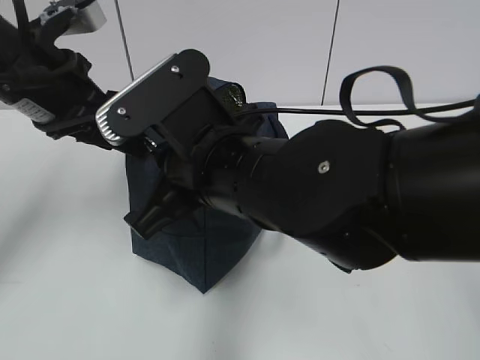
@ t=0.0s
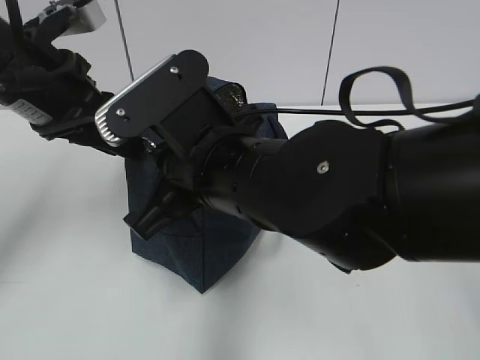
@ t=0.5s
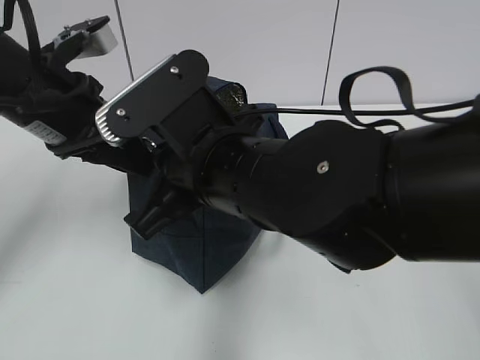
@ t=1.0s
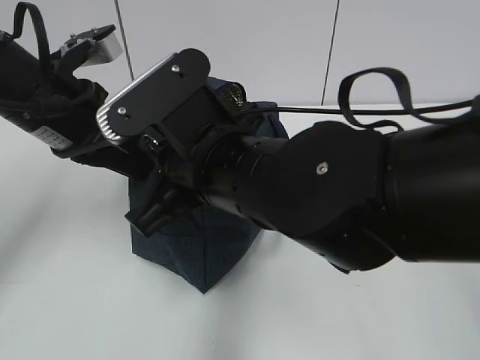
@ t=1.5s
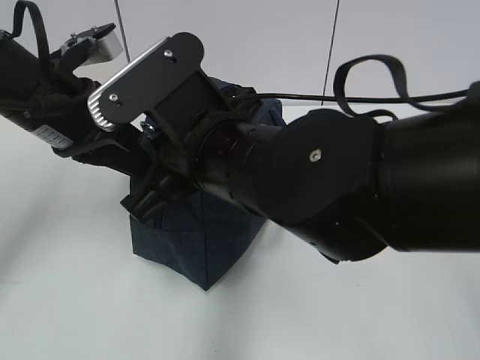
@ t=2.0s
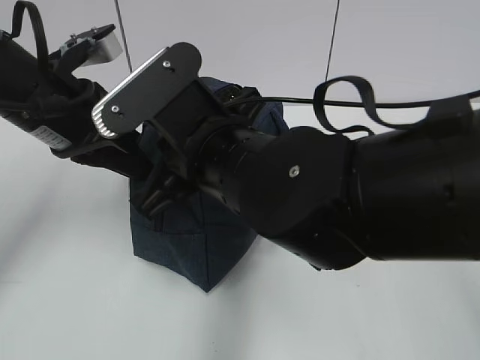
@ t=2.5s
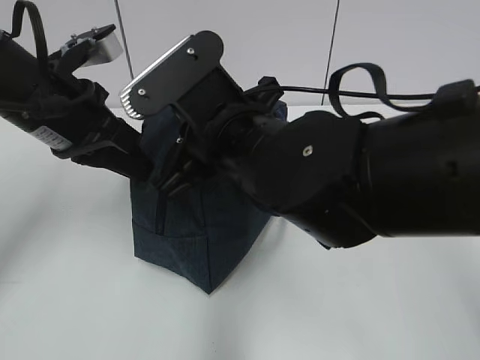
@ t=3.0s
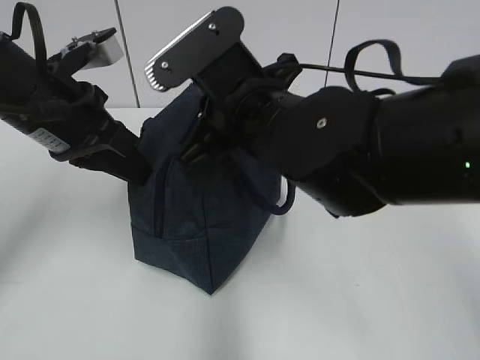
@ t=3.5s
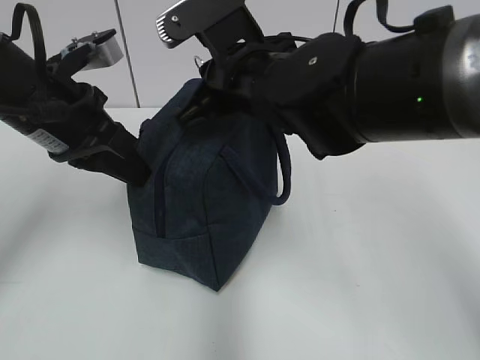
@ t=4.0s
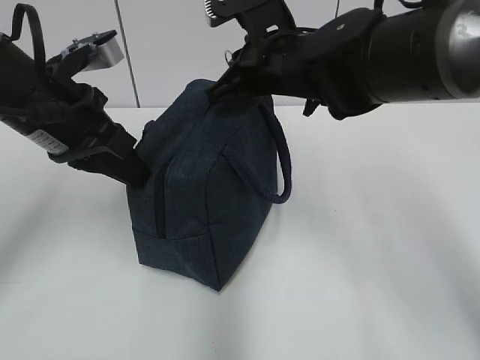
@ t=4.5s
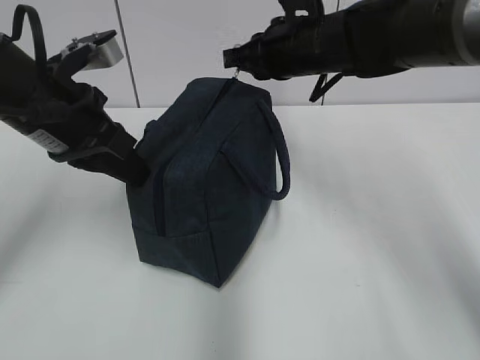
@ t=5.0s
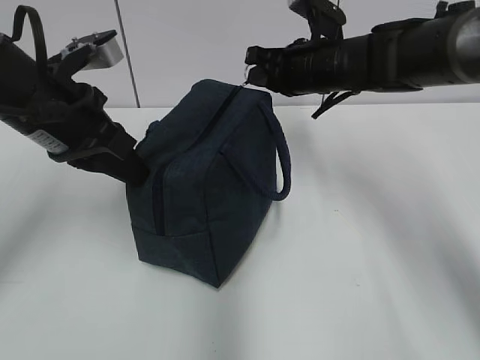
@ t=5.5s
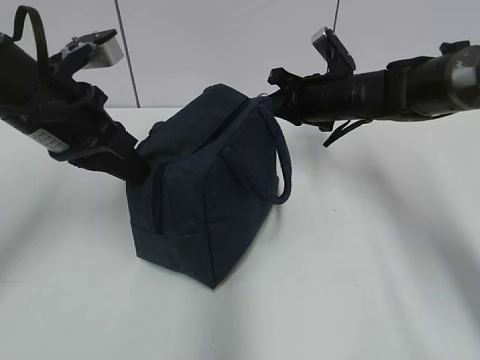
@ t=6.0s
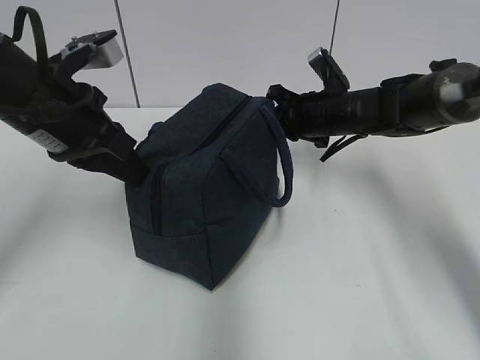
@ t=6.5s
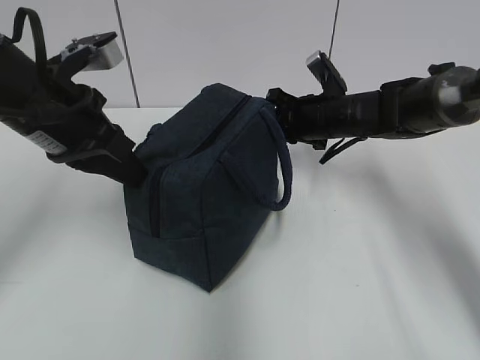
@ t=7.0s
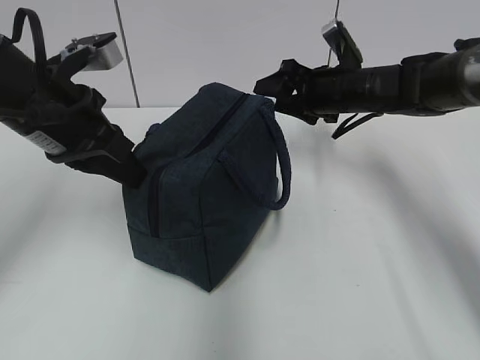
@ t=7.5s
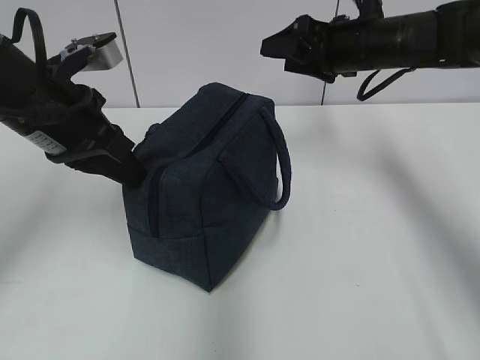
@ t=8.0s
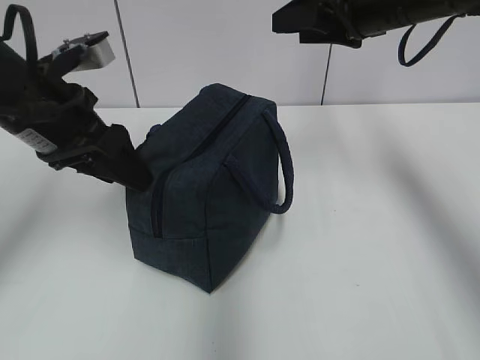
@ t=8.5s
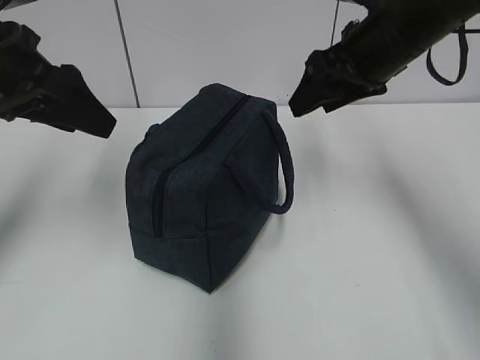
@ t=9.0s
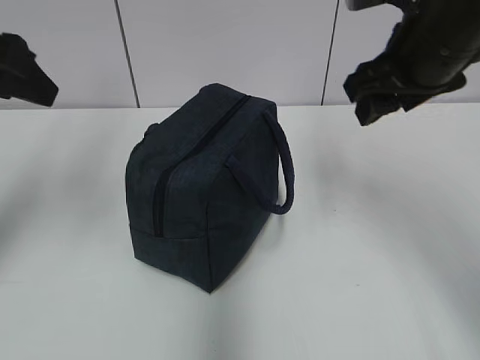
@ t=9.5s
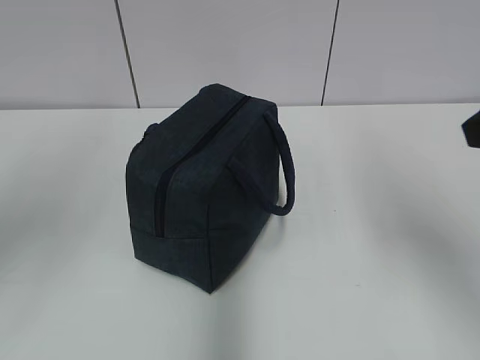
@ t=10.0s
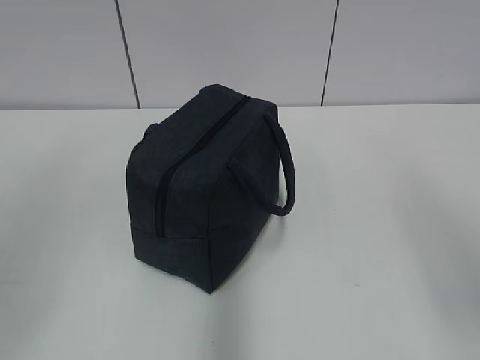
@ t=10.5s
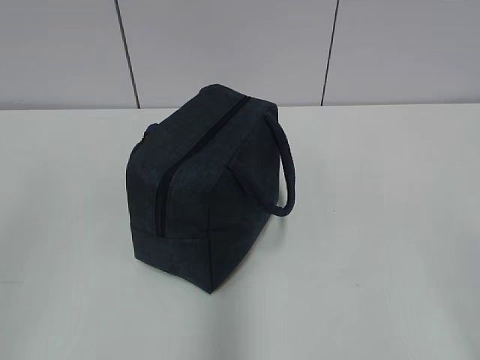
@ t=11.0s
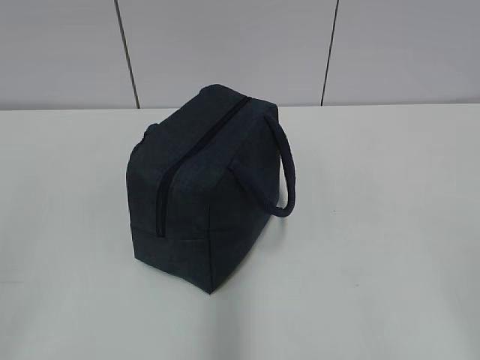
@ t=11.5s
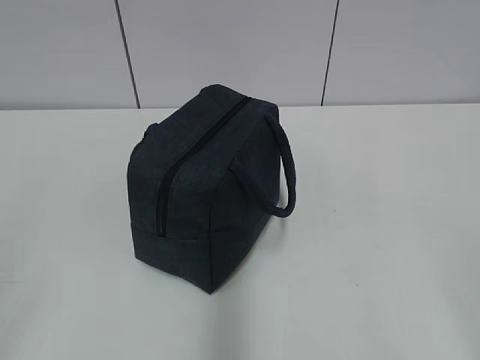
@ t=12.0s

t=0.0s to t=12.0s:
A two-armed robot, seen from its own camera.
Step, t=0.0s to t=7.0s: Pull the zipper with your right hand.
t=0.0s to t=2.0s: The left gripper closes up.
t=2.0s to t=4.0s: The right gripper is displaced forward by approximately 10 cm.
t=4.0s to t=6.0s: The right gripper heads forward, to the right and downward, covering about 20 cm.
t=6.0s to t=8.0s: The right gripper shifts some 10 cm upward, and opens up.
t=8.0s to t=10.0s: The right gripper travels backward by approximately 25 cm; the left gripper heads backward, upward and to the left, covering roughly 15 cm, and opens up.
t=10.0s to t=12.0s: The right gripper moves backward, about 20 cm. The left gripper moves backward and downward, about 20 cm.

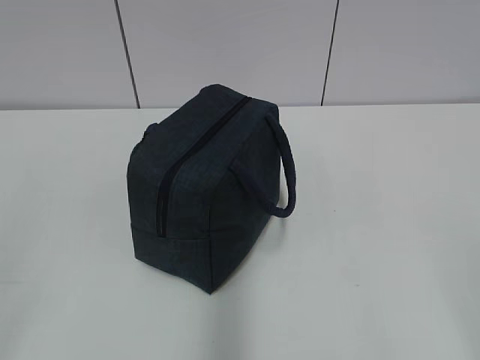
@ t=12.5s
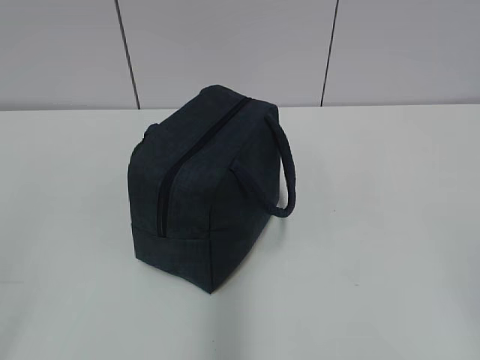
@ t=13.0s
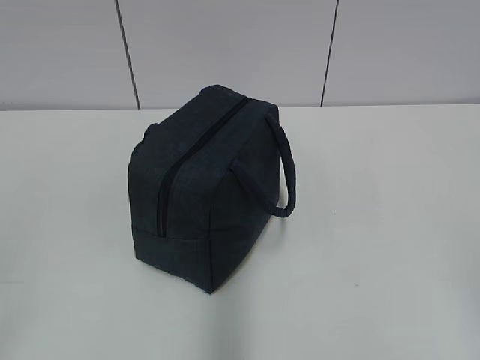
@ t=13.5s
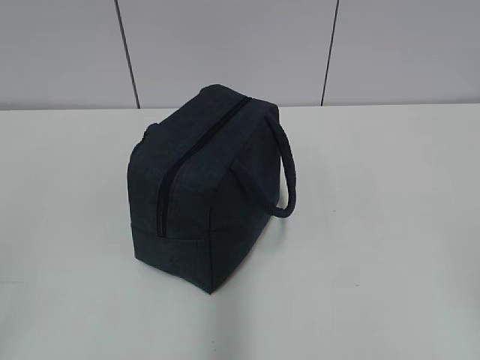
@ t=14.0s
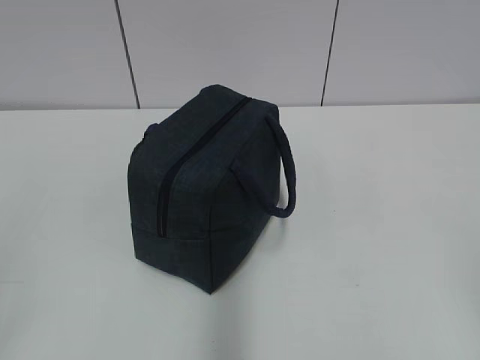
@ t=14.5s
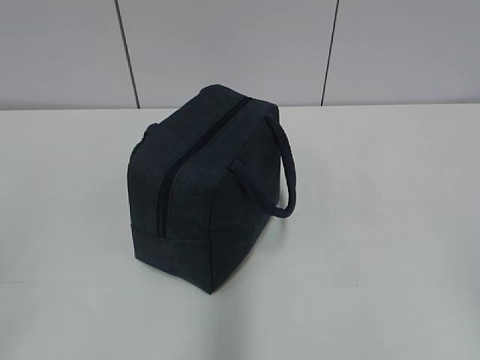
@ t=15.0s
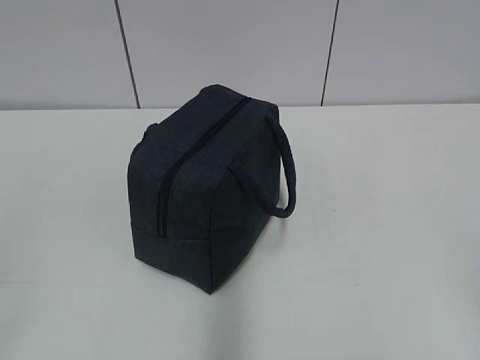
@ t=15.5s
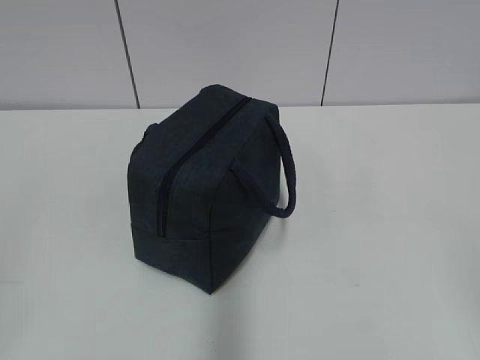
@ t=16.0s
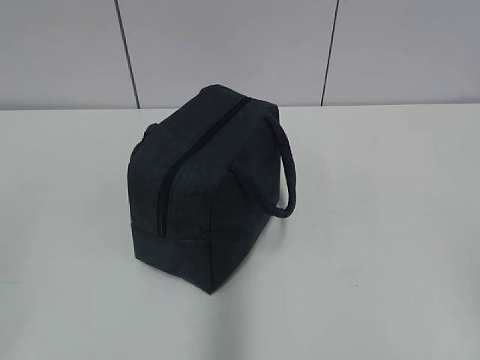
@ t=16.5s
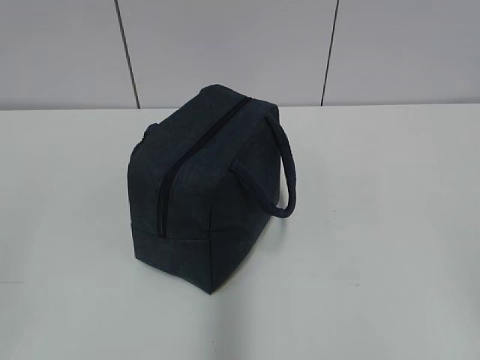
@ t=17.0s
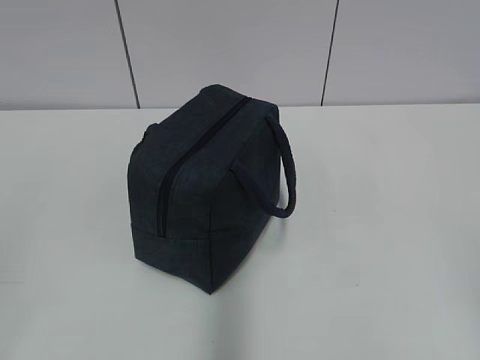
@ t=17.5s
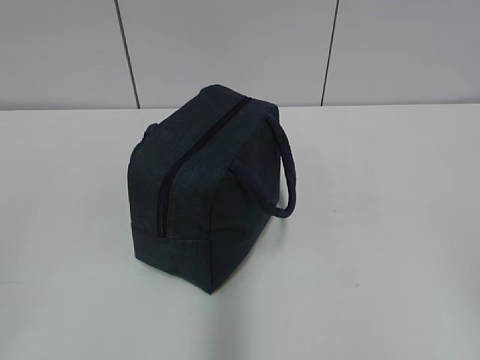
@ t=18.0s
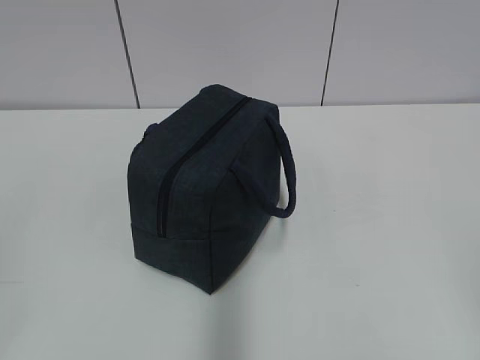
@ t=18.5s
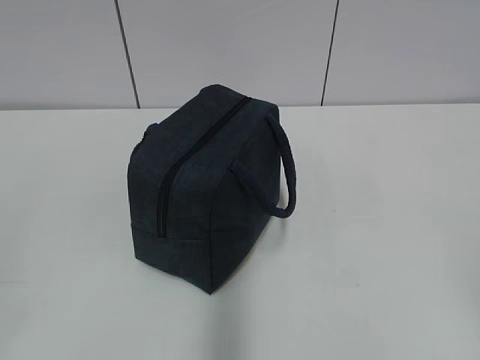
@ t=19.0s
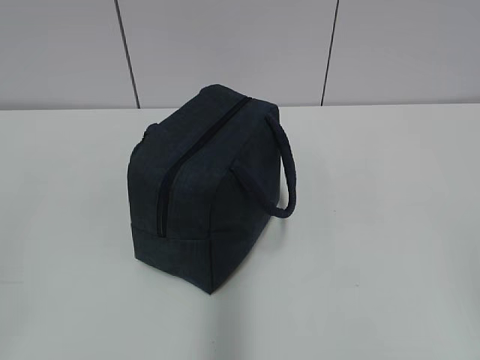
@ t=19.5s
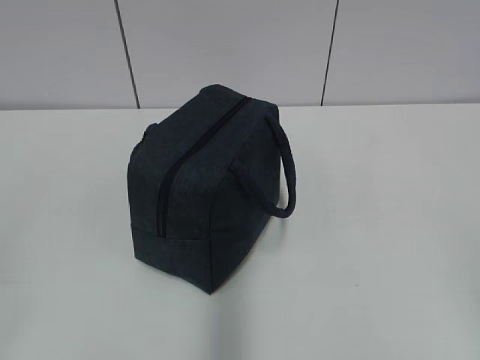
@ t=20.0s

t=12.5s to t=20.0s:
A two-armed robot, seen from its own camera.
t=18.0s to t=20.0s: Both grippers stay put.

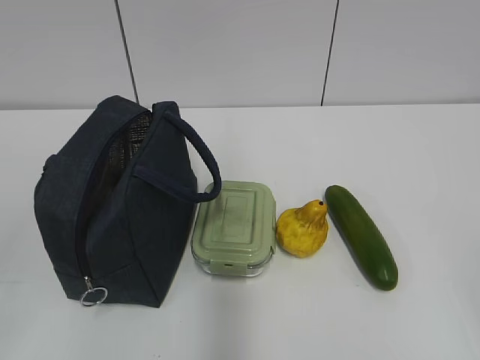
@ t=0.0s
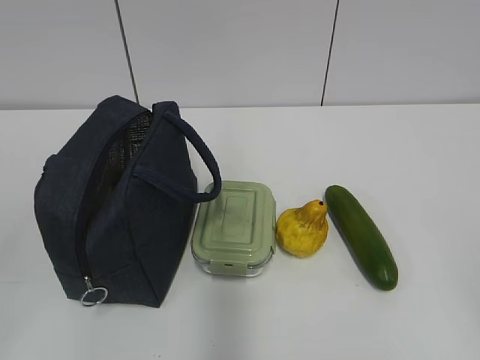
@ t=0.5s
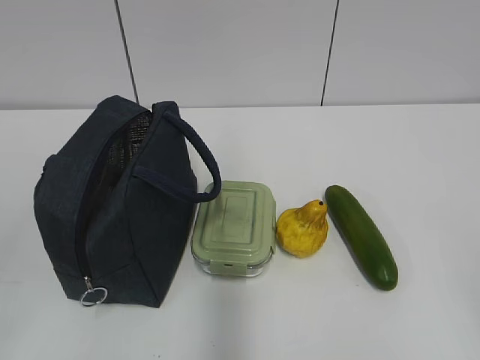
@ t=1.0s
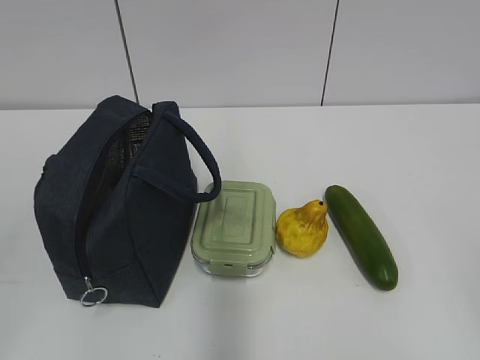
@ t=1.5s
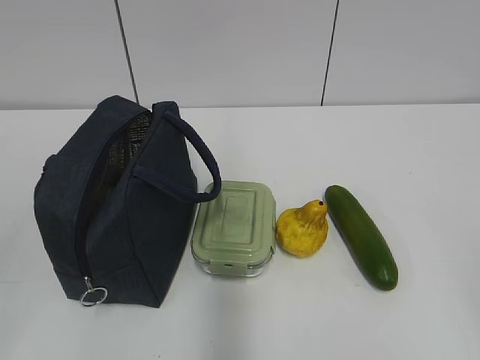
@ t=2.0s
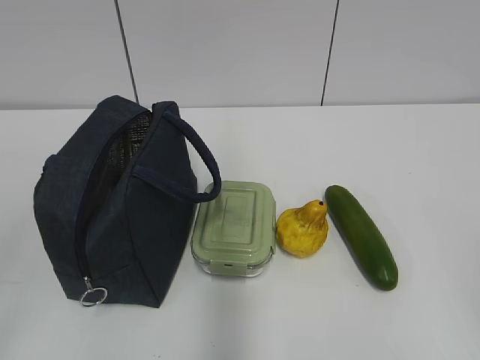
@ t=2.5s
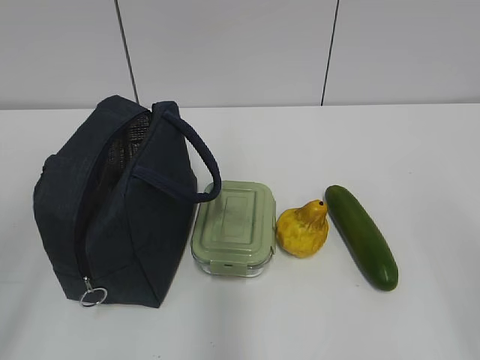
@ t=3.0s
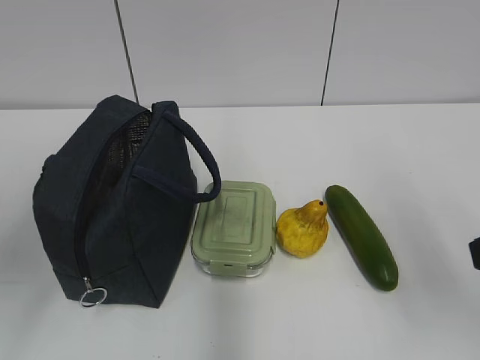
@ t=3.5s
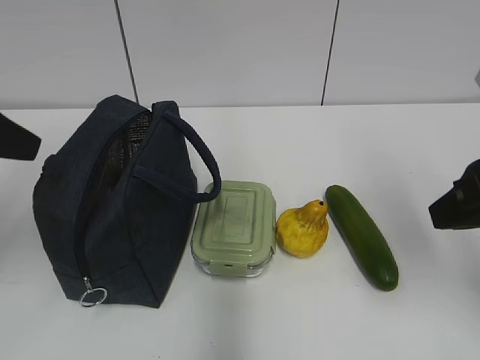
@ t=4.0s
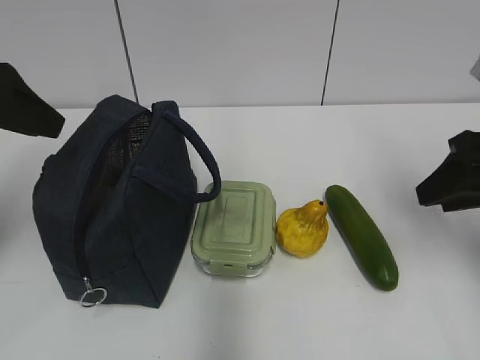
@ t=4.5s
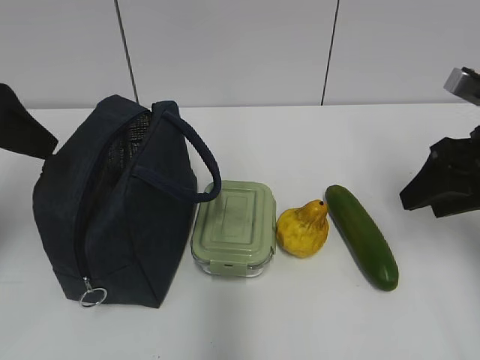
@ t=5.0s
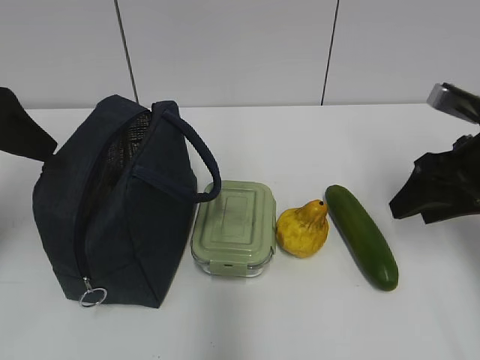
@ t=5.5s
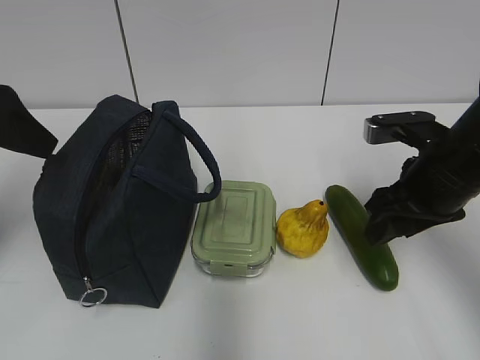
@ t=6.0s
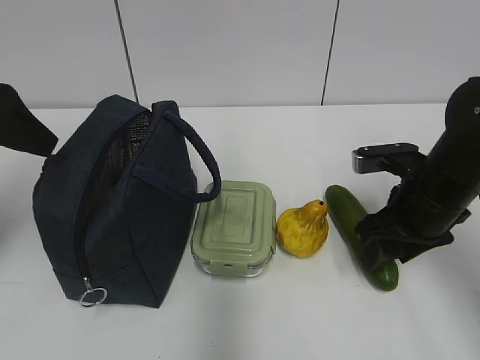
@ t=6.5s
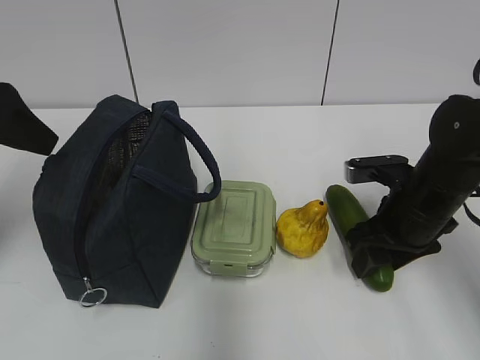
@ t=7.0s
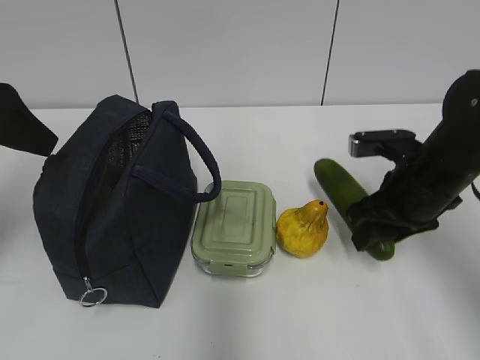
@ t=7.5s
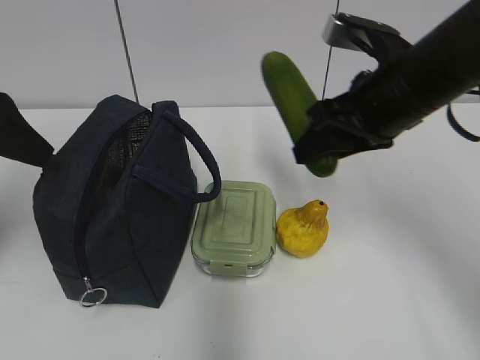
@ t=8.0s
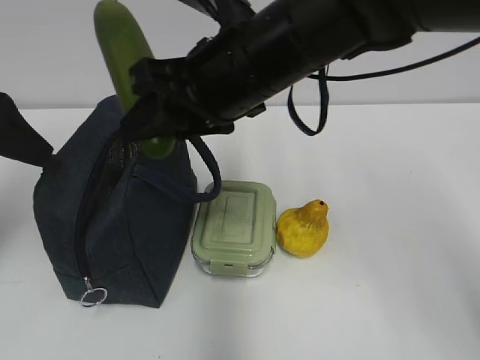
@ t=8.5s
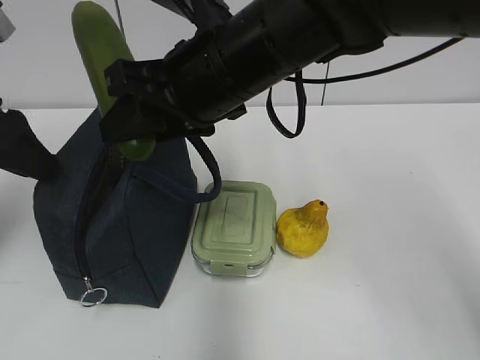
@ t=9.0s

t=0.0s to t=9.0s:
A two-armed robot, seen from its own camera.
Step, t=0.0s to t=7.0s: Grab the cucumber with your right hand.
t=2.0s to t=4.5s: The grippers both shift forward by about 25 cm.
t=4.5s to t=7.0s: The right gripper is displaced downward, to the left and forward by about 15 cm.
t=7.0s to t=9.0s: The right gripper goes some 25 cm to the left and upward.
